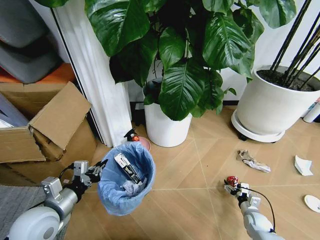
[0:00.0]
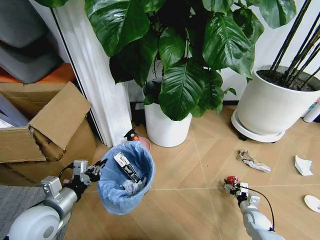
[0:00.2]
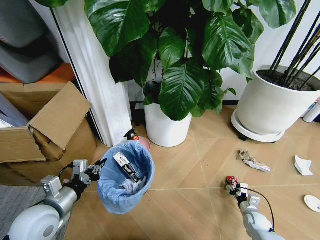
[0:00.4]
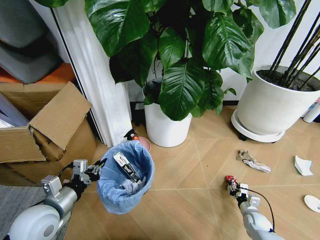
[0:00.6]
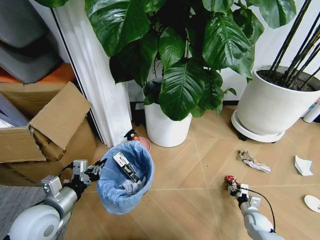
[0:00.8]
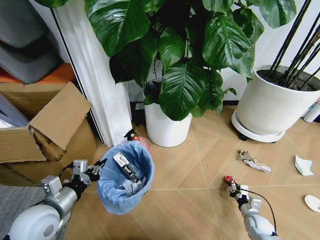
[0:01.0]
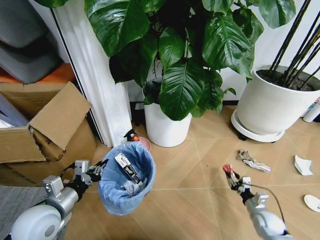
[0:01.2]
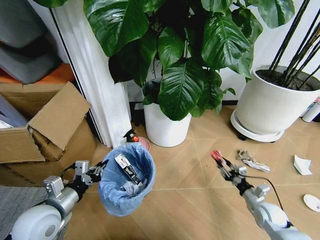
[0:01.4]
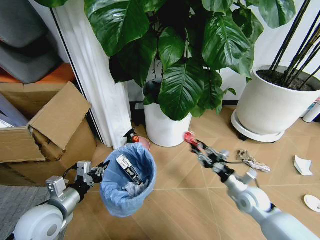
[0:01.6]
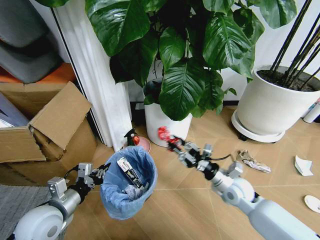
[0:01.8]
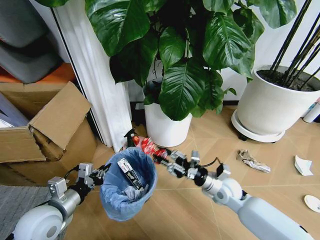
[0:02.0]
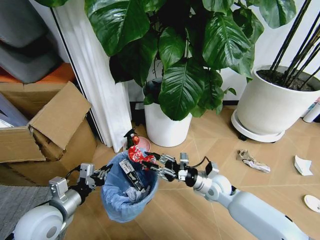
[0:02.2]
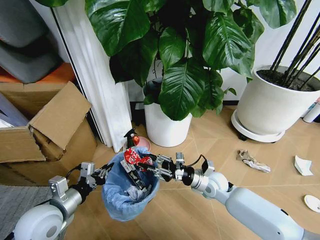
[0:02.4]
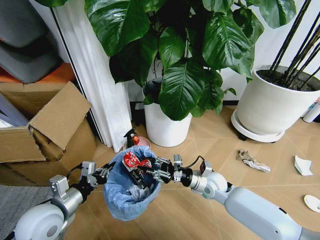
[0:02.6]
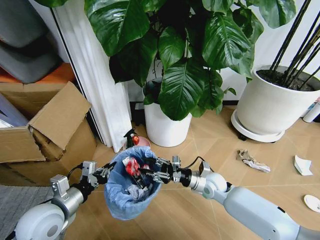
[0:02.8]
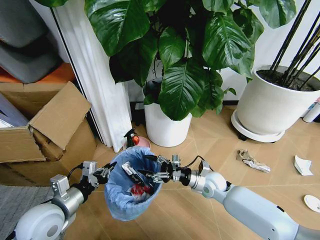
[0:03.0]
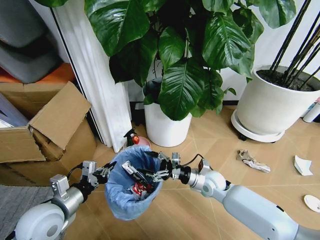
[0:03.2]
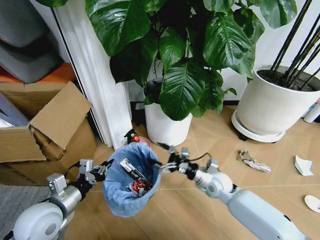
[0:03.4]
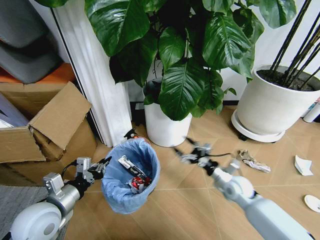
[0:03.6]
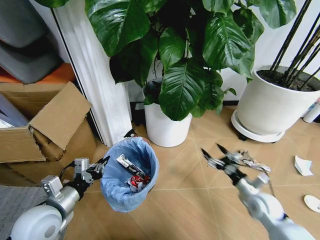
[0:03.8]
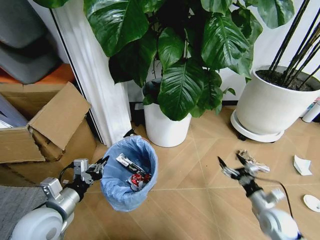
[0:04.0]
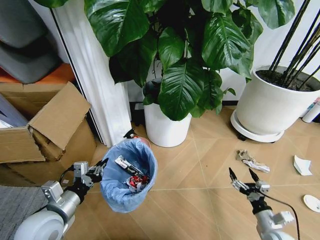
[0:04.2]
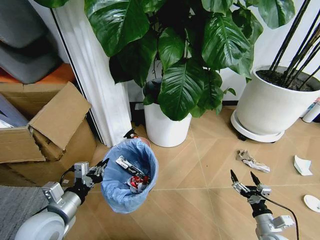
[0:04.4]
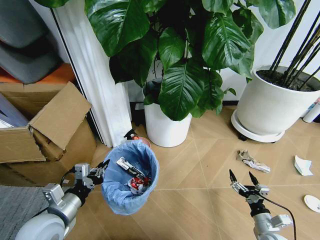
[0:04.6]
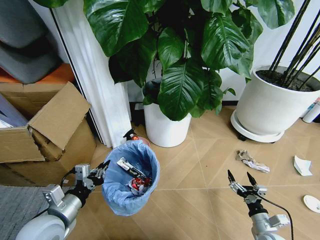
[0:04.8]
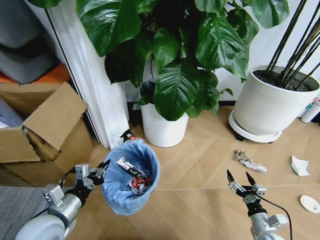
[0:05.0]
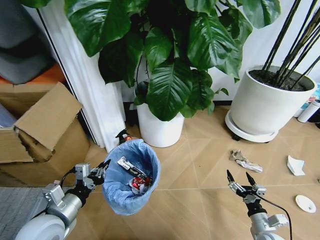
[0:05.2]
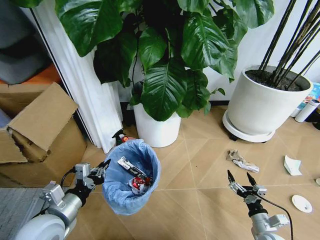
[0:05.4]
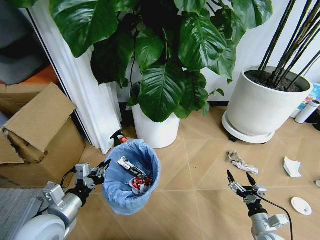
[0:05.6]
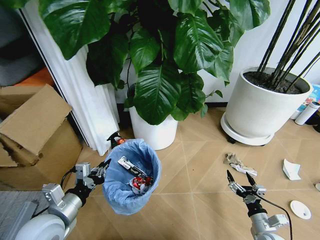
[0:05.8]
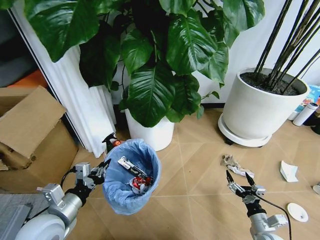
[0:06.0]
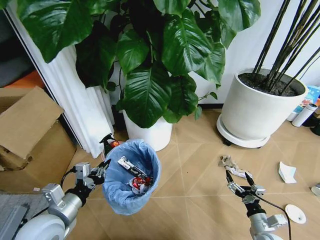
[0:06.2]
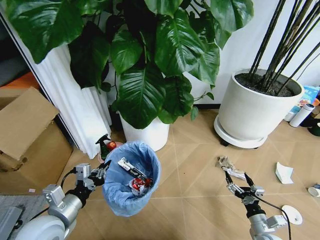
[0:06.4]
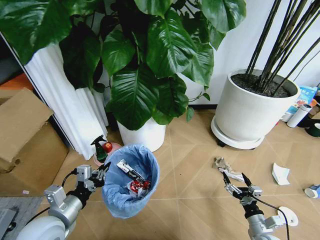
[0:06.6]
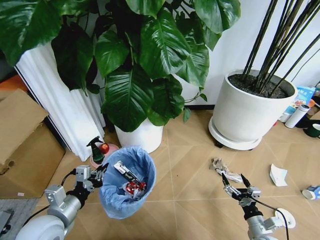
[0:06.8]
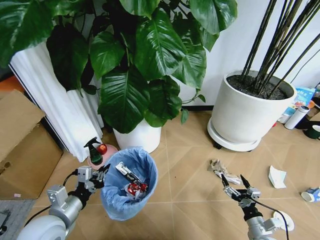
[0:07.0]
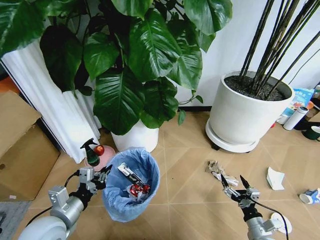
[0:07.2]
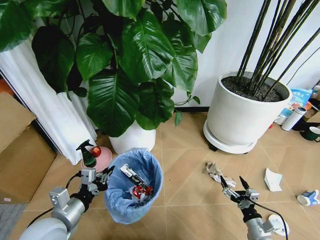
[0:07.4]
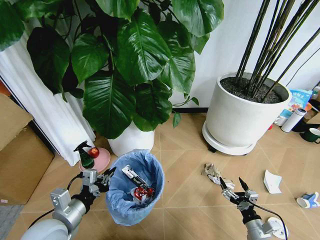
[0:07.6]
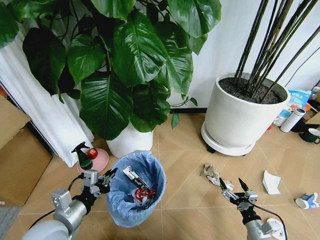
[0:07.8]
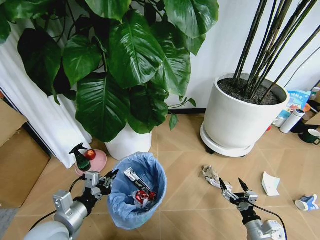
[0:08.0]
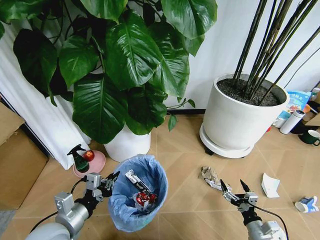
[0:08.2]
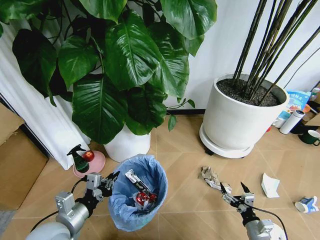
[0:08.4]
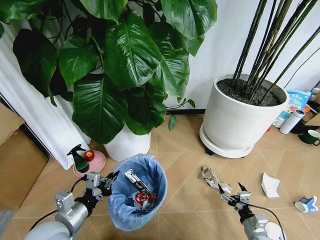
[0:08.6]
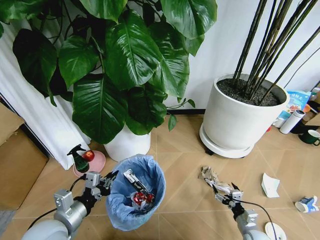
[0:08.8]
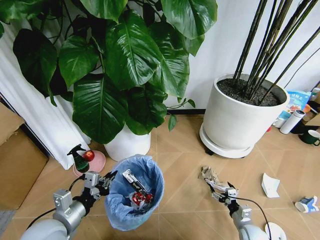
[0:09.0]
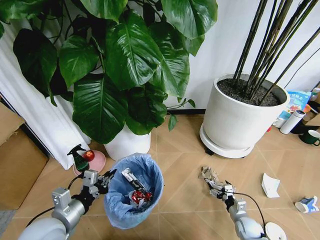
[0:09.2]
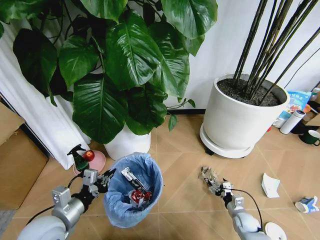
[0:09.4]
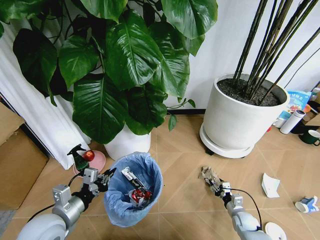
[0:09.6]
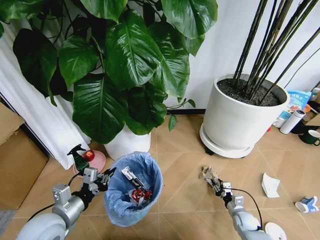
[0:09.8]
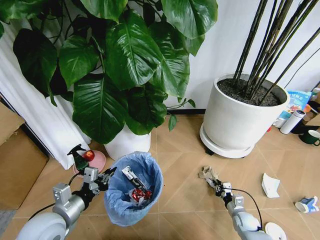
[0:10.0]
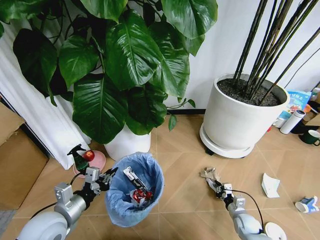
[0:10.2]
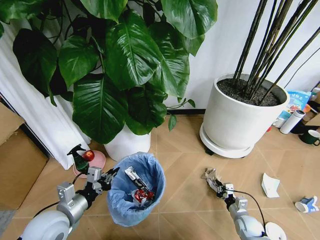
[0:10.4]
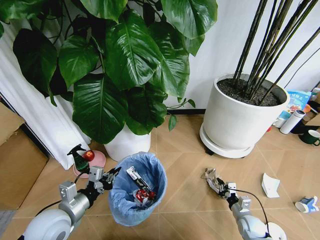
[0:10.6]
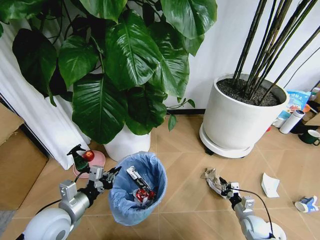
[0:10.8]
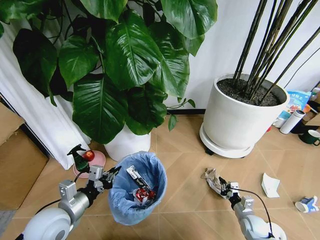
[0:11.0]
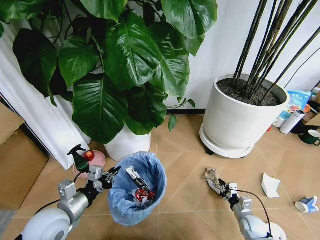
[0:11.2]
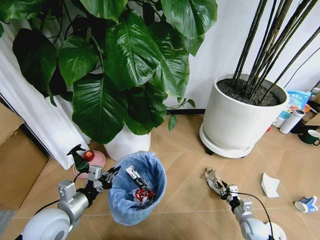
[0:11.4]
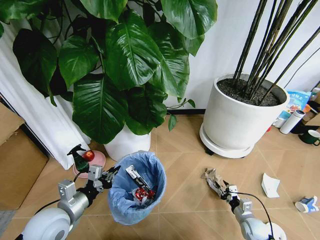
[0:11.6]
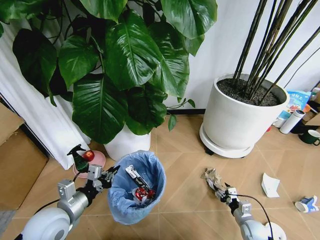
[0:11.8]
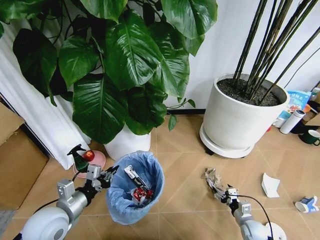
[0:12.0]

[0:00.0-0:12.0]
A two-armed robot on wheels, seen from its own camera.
Task of the whole recording: Pick up the trash bin and place the garbage on the floor into it.
0:00.0 to 0:01.6: The right gripper heads upward and to the left, covering approximately 20 cm, and closes.
0:01.6 to 0:03.0: The right gripper travels to the left and forward by roughly 15 cm.
0:03.0 to 0:04.4: The right gripper goes about 25 cm backward and to the right.
0:07.6 to 0:09.0: The right gripper heads downward and forward, covering about 10 cm.
0:09.0 to 0:10.4: The right gripper closes up.
0:10.4 to 0:12.0: The right gripper opens.

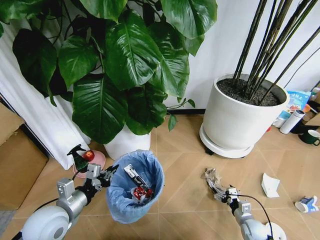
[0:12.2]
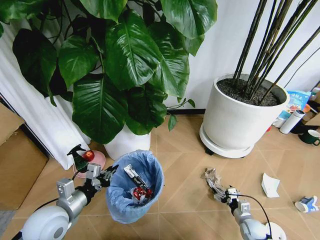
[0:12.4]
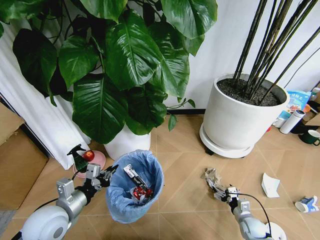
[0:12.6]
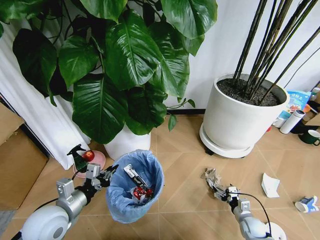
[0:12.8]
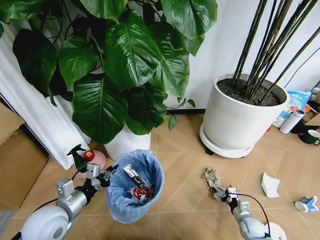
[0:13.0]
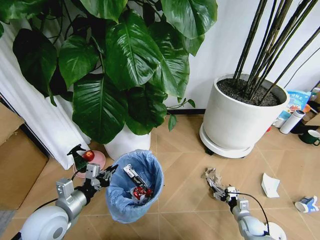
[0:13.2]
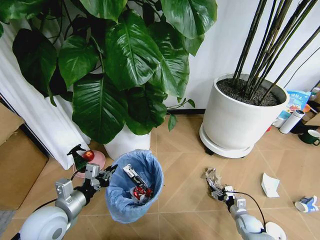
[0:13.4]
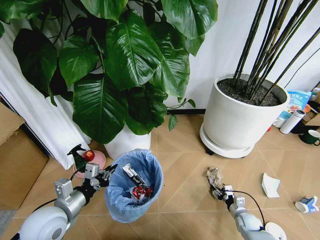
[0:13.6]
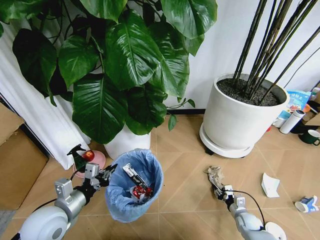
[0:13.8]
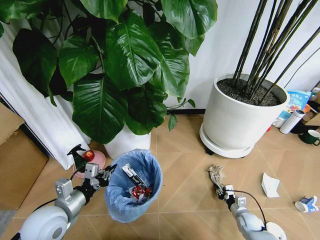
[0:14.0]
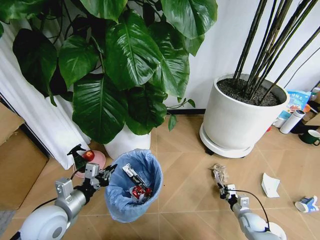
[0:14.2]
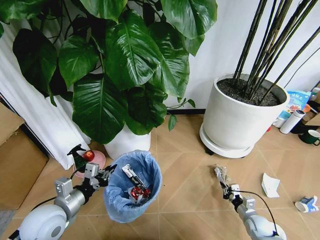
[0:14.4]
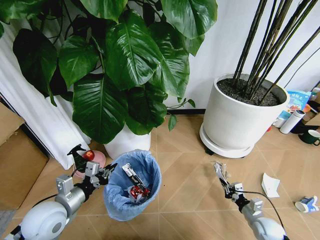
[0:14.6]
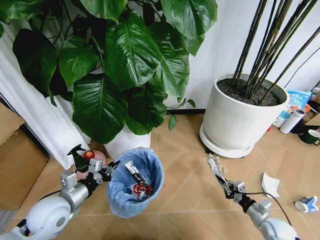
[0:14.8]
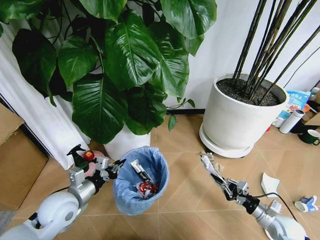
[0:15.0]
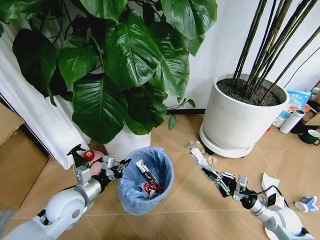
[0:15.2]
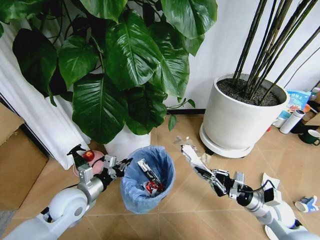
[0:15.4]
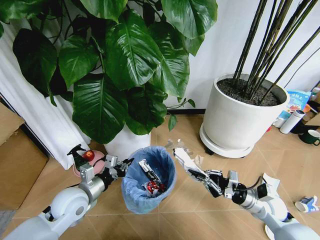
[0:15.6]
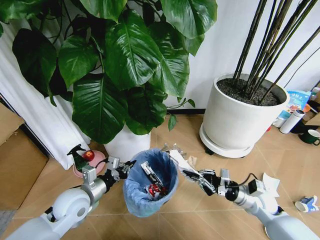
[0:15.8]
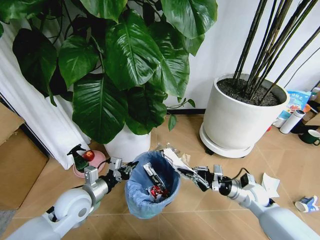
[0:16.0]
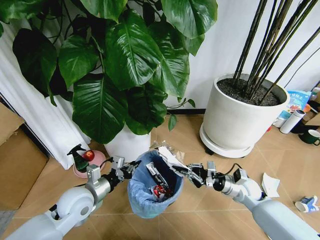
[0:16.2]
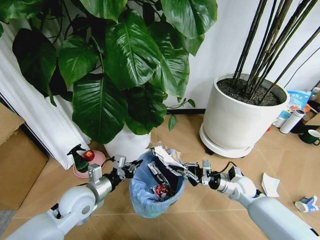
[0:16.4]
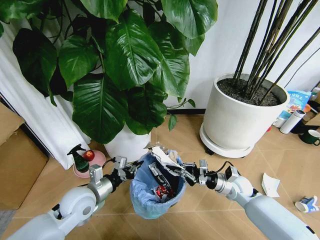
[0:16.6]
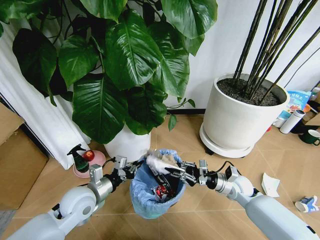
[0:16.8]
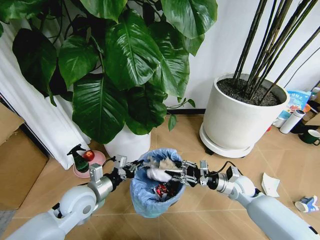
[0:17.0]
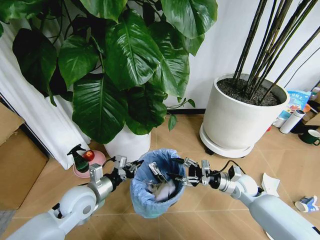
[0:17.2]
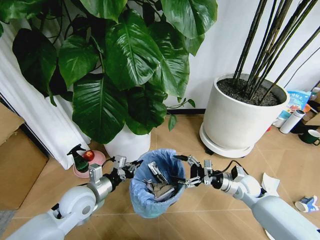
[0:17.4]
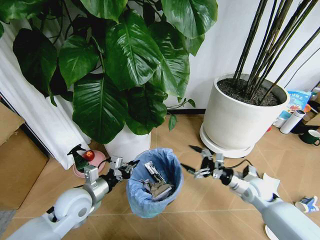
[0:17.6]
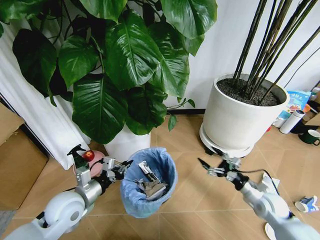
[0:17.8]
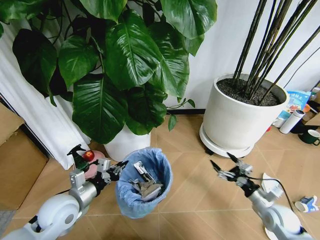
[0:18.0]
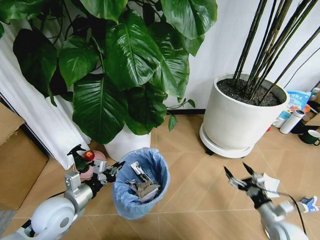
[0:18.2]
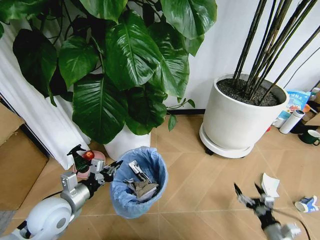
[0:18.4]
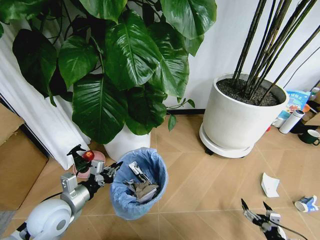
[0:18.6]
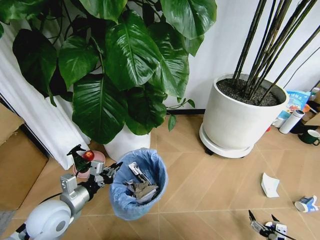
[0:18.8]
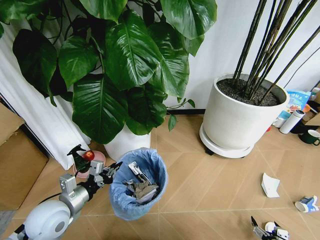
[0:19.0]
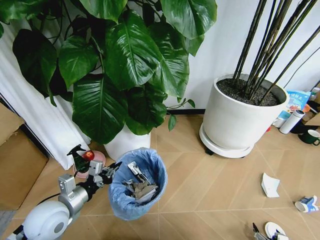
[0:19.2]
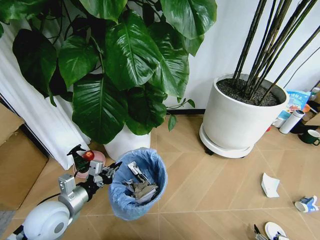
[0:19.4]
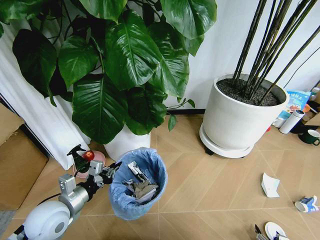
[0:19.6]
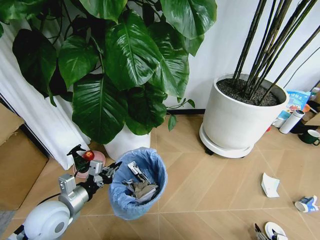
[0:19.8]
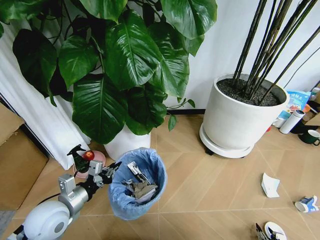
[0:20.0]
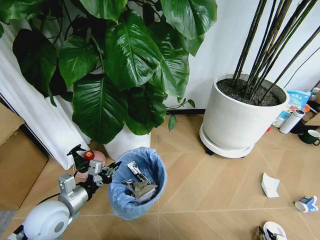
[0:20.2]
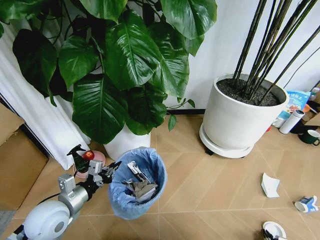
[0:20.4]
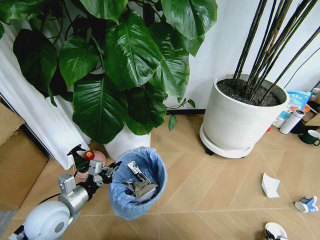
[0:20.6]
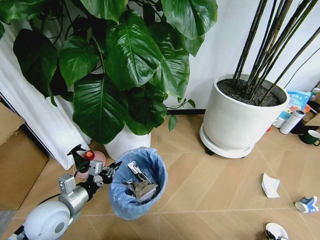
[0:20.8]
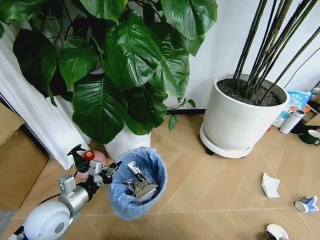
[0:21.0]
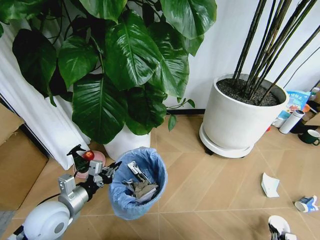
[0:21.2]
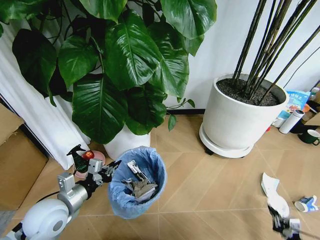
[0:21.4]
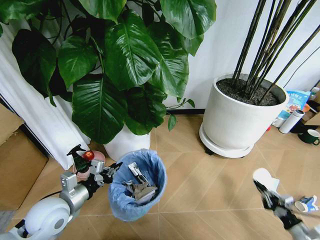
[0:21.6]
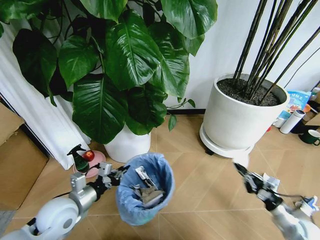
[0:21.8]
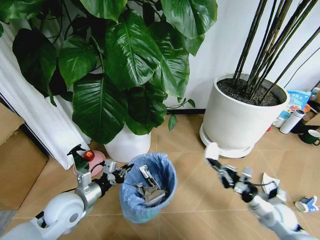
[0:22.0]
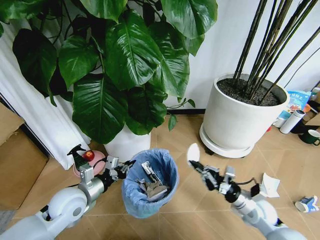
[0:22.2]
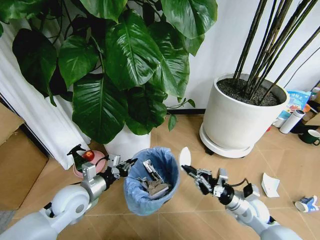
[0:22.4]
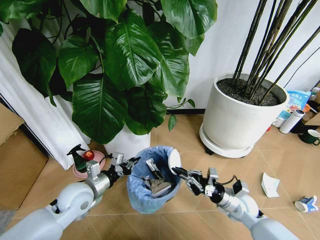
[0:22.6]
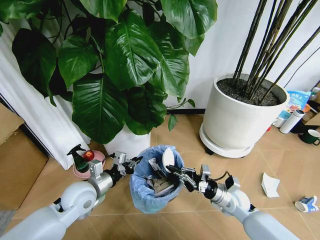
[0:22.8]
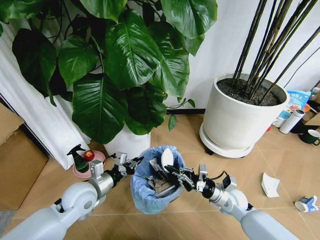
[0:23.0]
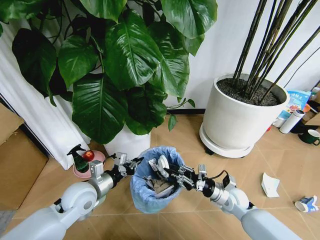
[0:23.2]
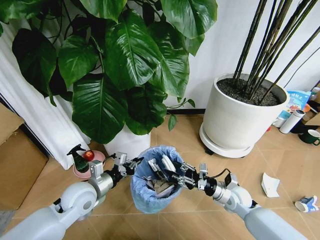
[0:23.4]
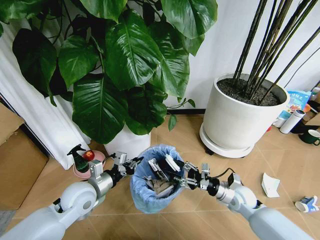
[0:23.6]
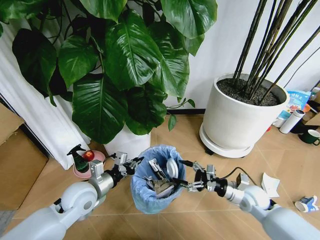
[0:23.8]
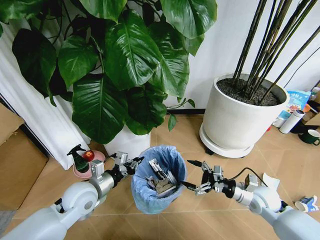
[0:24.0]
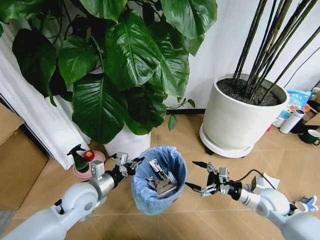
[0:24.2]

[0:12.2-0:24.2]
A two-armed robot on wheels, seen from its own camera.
Task of the whole recording: Pick up the trash bin and place the garbage on the floor into it.
0:12.2 to 0:13.8: The right gripper closes up.
0:13.8 to 0:15.2: The right gripper moves upward, some 20 cm, and closes. The left gripper shifts approximately 5 cm forward.
0:15.2 to 0:16.6: The right gripper goes roughly 15 cm forward and to the left.
0:16.6 to 0:18.2: The right gripper is displaced backward and to the right by approximately 20 cm, and opens its fingers. The left gripper shifts by roughly 5 cm.
0:18.2 to 0:19.8: The right gripper is displaced backward and downward by roughly 20 cm.
0:19.8 to 0:21.2: The right gripper closes.
0:21.2 to 0:22.6: The right gripper shifts about 35 cm forward, to the left and upward; the left gripper travels forward by roughly 5 cm.
0:22.6 to 0:24.2: The right gripper goes roughly 10 cm to the right, and opens up.
